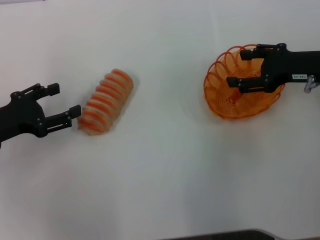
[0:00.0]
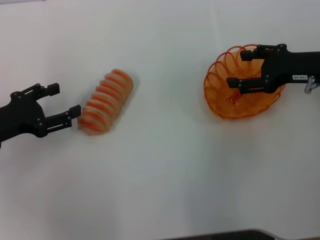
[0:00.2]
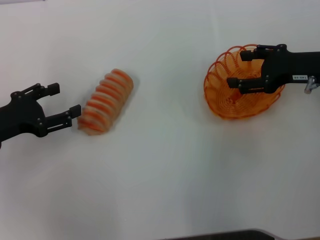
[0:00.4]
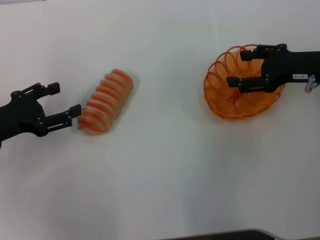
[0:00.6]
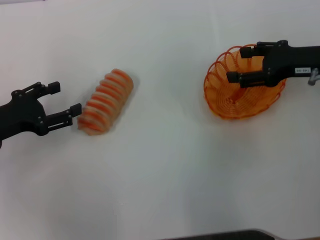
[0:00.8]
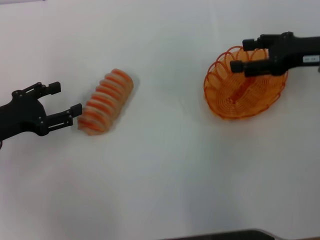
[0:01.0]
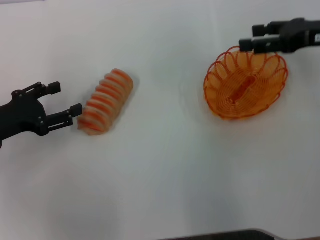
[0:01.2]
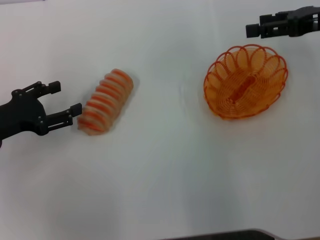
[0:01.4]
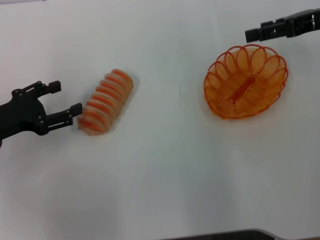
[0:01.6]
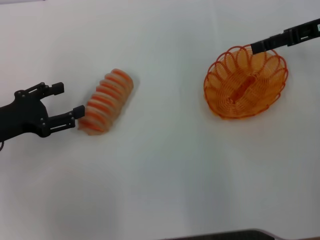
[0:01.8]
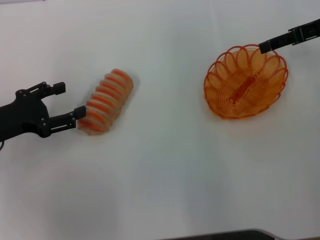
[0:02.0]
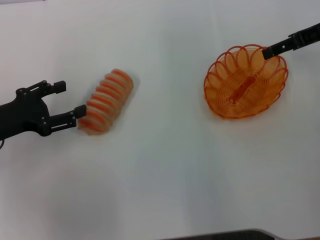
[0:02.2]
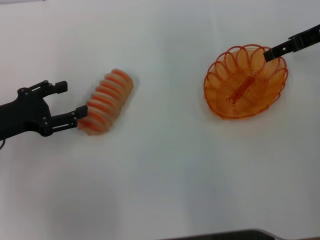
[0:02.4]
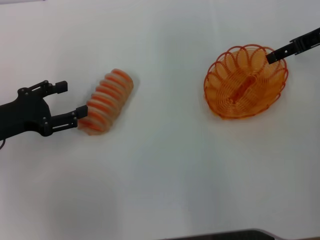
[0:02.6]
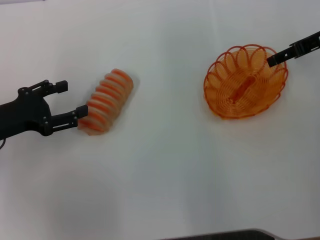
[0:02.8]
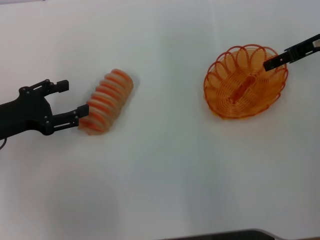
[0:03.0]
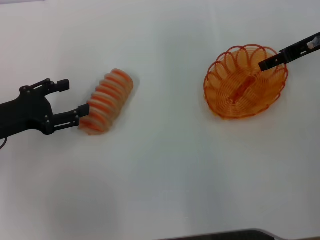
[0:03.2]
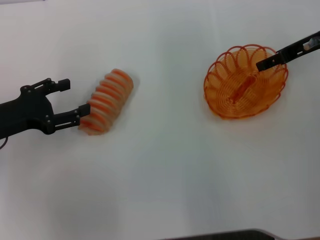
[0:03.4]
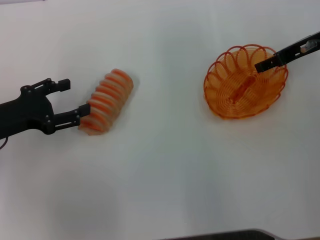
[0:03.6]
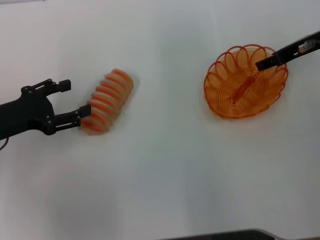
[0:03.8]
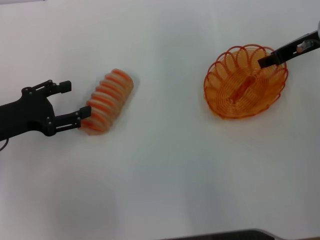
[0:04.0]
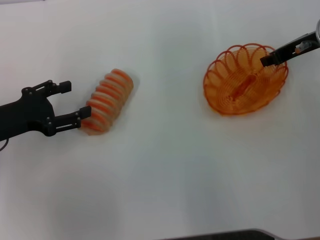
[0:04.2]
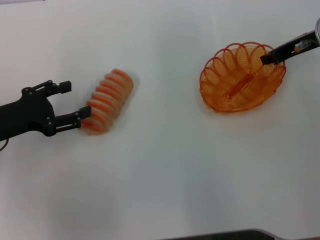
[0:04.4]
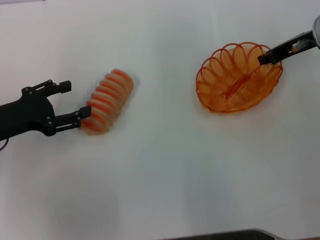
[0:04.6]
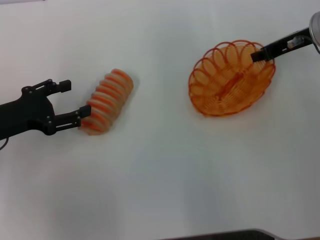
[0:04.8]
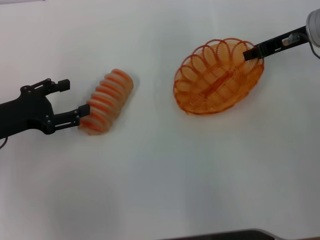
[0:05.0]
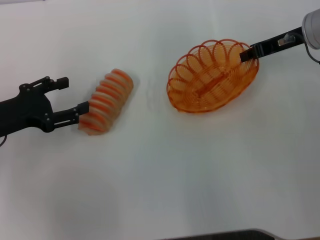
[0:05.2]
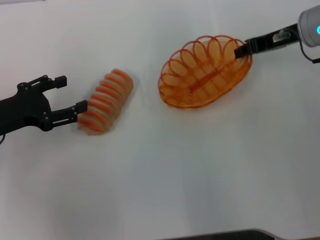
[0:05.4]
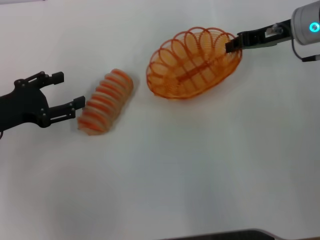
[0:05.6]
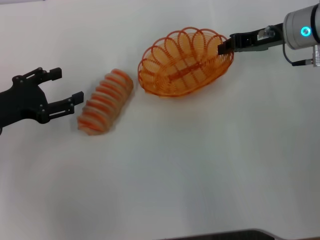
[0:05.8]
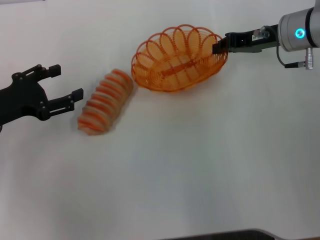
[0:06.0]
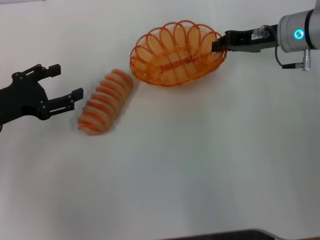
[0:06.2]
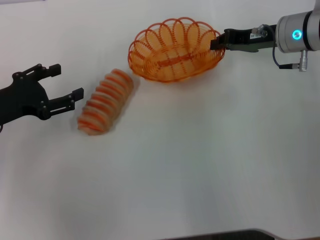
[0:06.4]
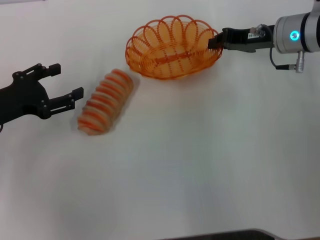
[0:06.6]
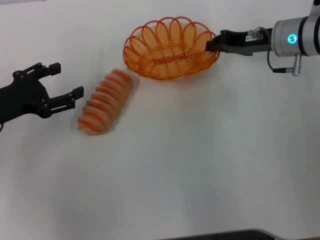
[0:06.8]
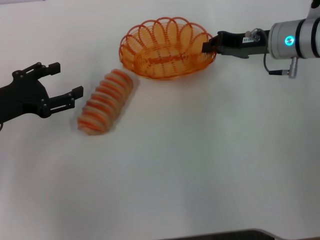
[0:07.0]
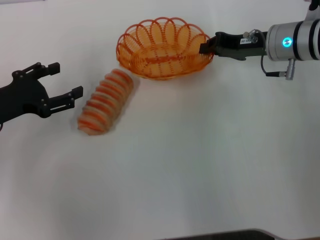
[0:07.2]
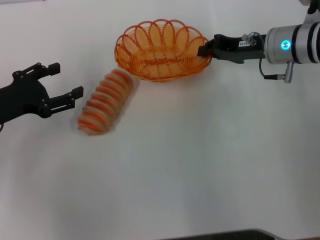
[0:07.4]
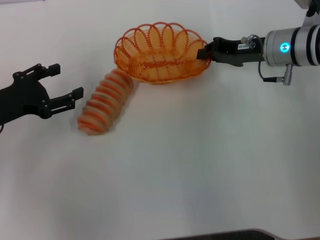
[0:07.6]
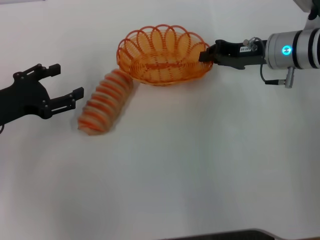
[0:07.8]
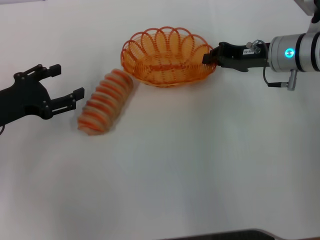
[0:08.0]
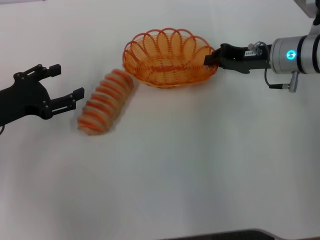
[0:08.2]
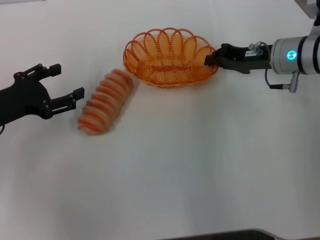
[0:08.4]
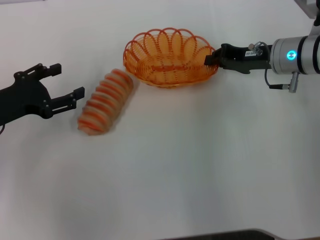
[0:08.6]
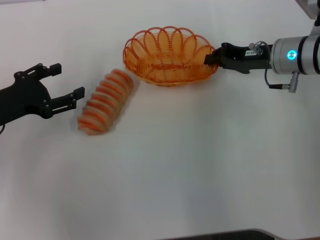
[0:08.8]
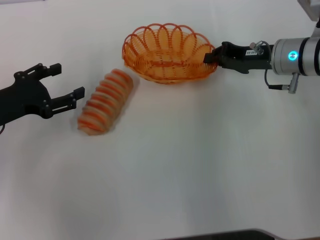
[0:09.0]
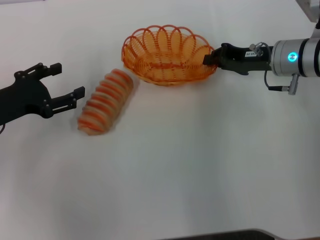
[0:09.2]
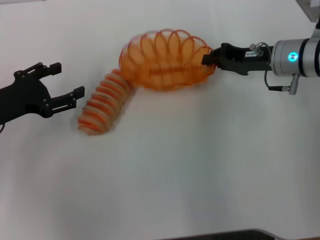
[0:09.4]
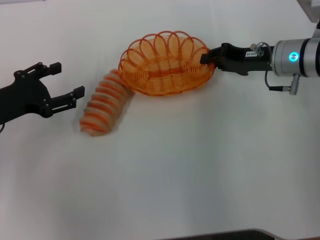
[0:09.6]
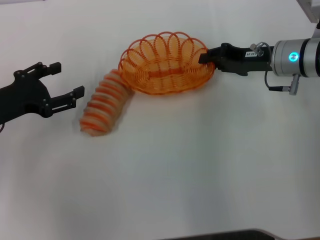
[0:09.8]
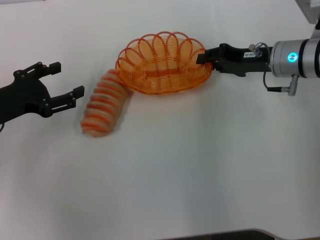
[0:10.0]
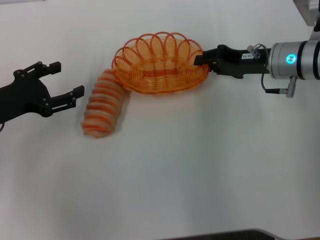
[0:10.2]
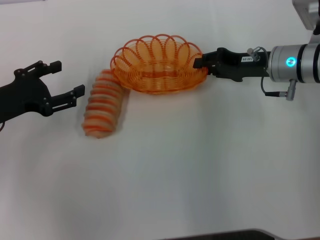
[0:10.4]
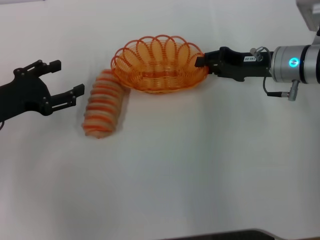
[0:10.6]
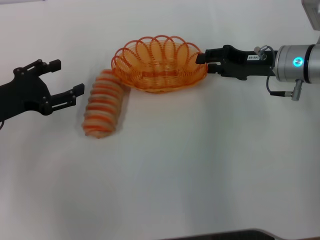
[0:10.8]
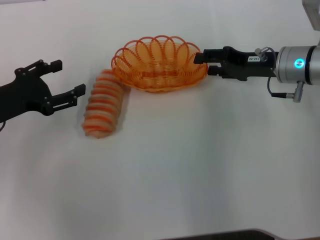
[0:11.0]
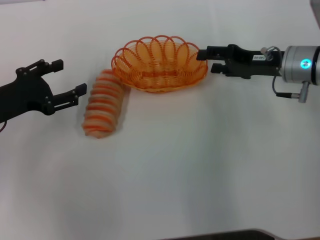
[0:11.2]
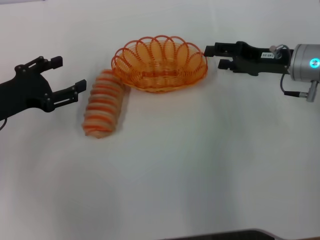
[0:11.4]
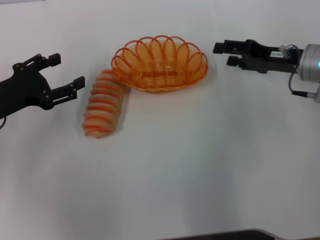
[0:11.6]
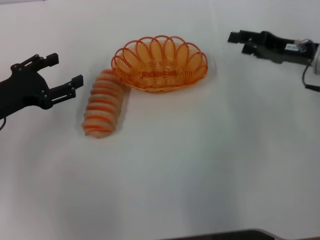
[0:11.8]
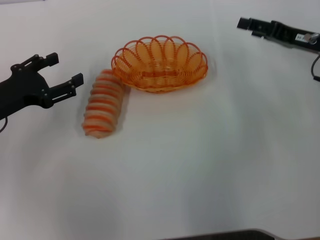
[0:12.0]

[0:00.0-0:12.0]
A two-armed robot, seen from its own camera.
Step, 0:00.0 to 0:05.2: Pick up the basket with the right gripper.
Step, 0:05.4 to 0:11.6: Place the basket in the center of view with the right gripper.
0:00.0 to 0:01.6: The right gripper is displaced upward by approximately 10 cm.
0:03.0 to 0:04.4: The right gripper closes.
0:06.0 to 0:07.6: The grippers move only a little.
0:07.6 to 0:09.0: There are only small adjustments of the grippers.
0:09.0 to 0:10.4: The right gripper opens.
0:10.4 to 0:12.0: The right gripper is displaced to the right by some 5 cm, and opens up.

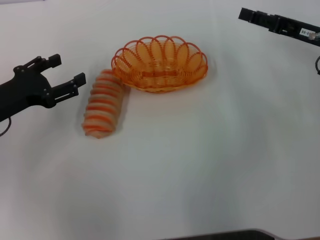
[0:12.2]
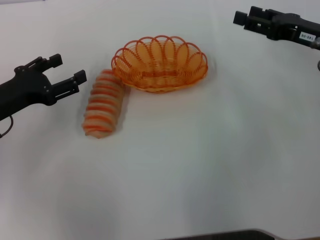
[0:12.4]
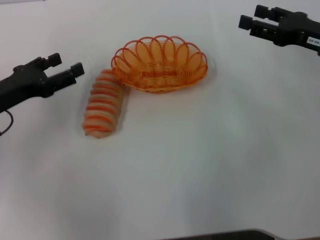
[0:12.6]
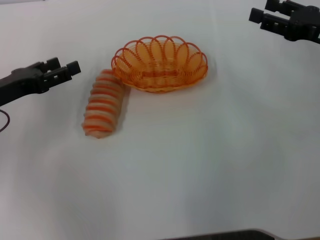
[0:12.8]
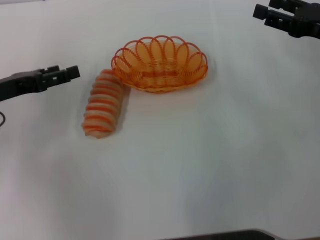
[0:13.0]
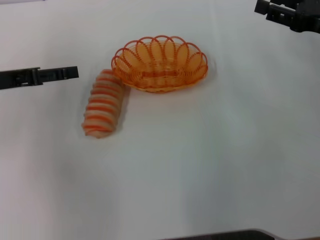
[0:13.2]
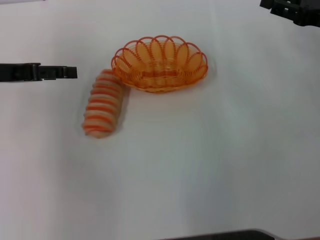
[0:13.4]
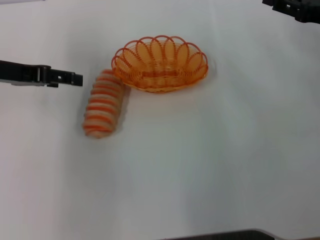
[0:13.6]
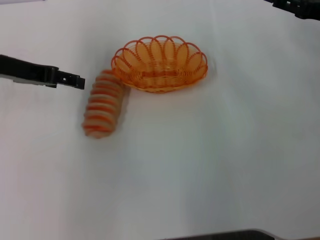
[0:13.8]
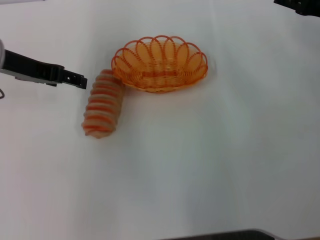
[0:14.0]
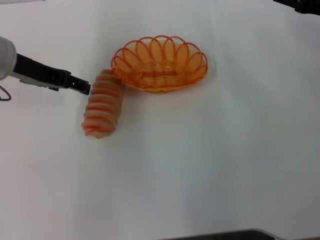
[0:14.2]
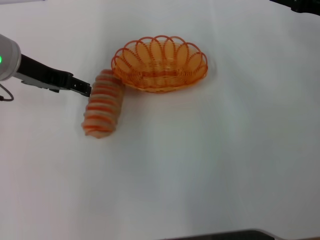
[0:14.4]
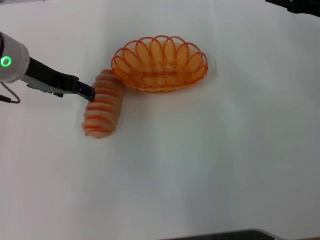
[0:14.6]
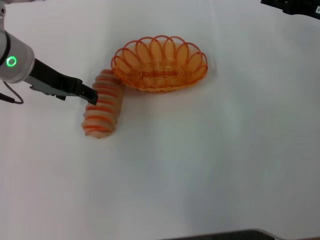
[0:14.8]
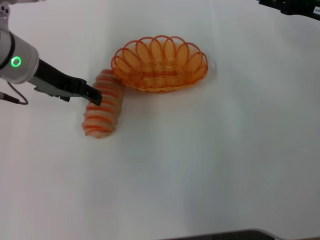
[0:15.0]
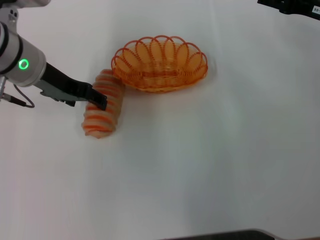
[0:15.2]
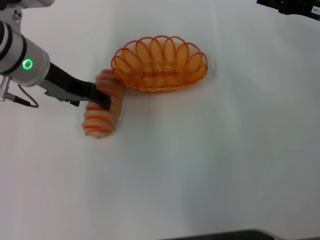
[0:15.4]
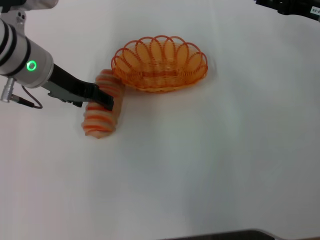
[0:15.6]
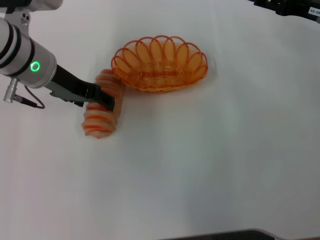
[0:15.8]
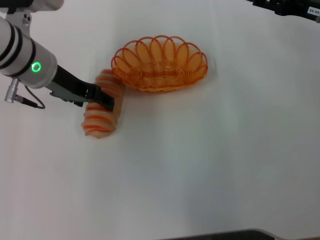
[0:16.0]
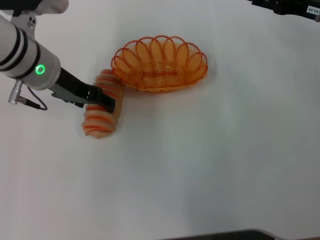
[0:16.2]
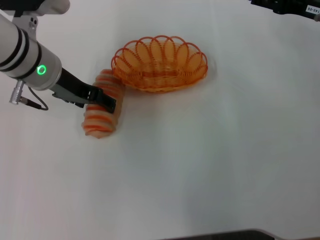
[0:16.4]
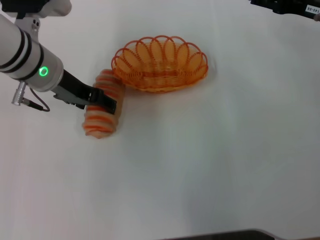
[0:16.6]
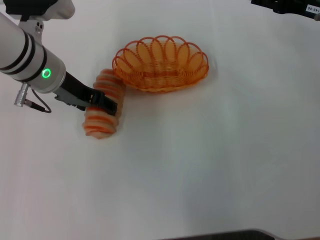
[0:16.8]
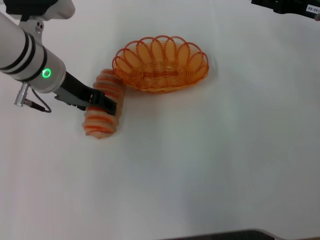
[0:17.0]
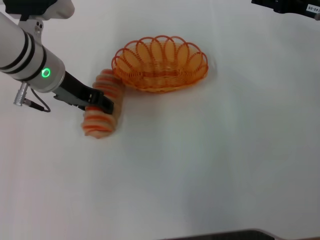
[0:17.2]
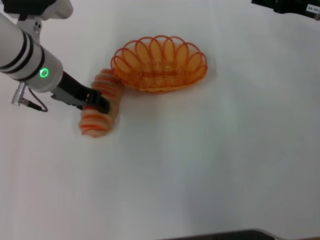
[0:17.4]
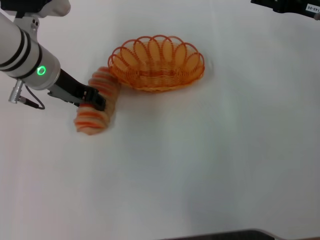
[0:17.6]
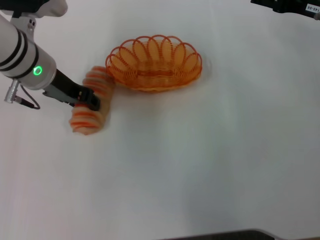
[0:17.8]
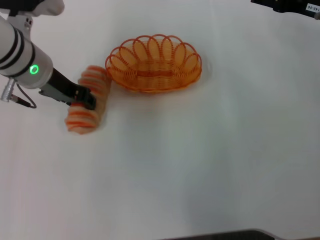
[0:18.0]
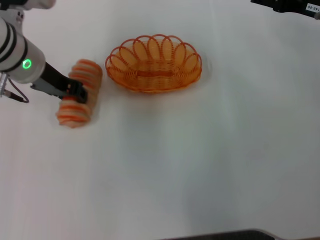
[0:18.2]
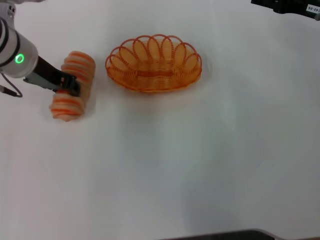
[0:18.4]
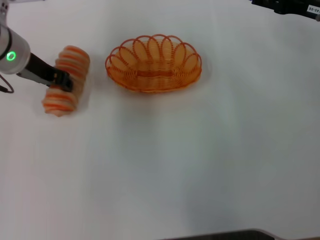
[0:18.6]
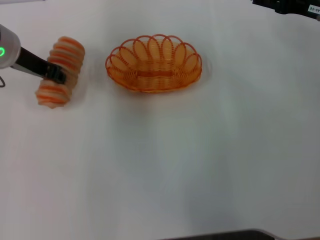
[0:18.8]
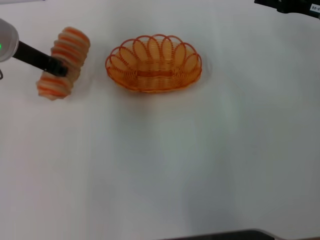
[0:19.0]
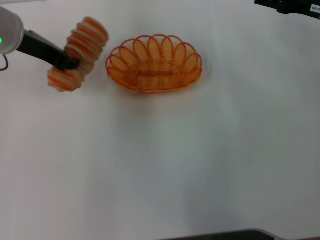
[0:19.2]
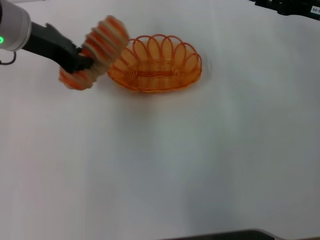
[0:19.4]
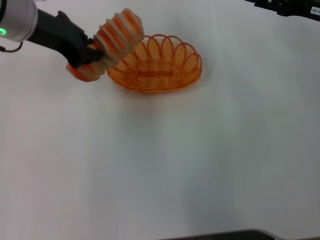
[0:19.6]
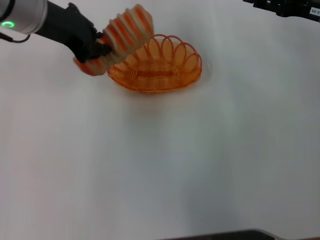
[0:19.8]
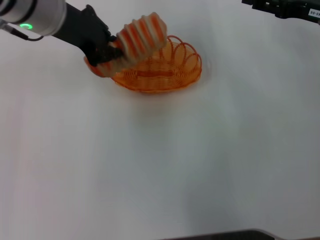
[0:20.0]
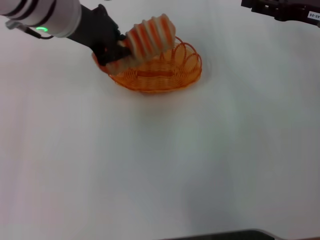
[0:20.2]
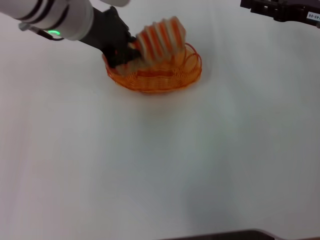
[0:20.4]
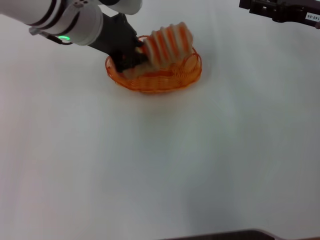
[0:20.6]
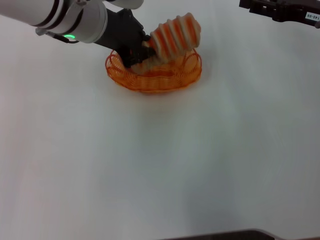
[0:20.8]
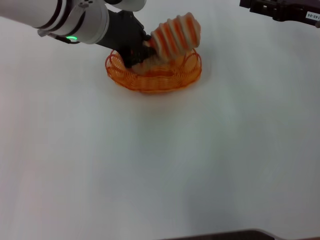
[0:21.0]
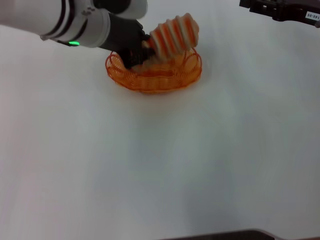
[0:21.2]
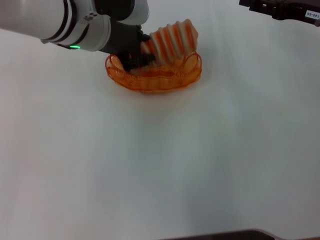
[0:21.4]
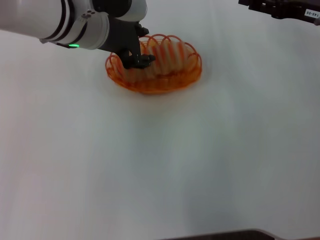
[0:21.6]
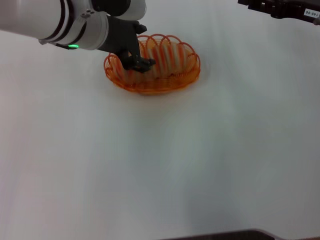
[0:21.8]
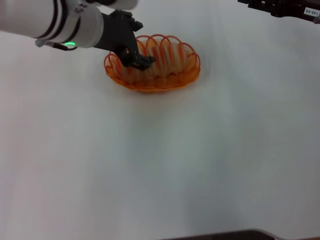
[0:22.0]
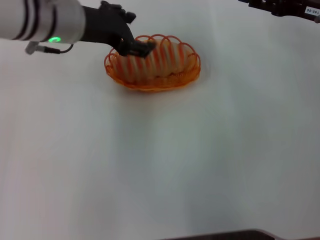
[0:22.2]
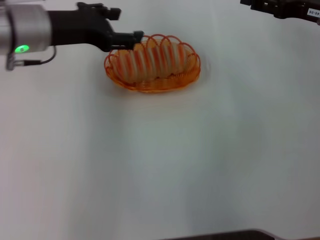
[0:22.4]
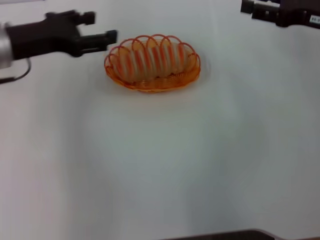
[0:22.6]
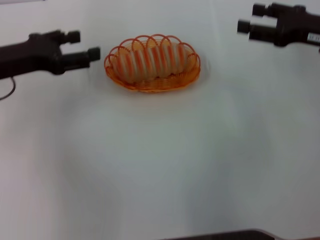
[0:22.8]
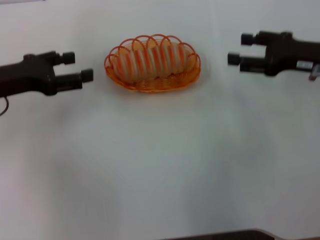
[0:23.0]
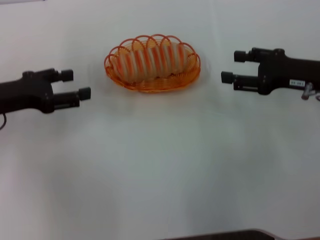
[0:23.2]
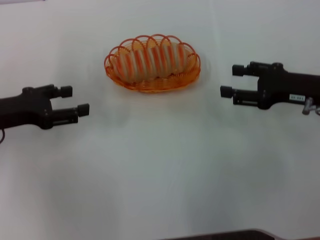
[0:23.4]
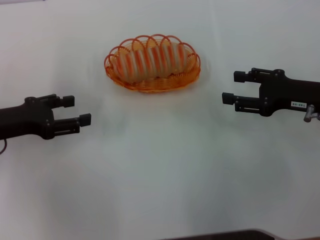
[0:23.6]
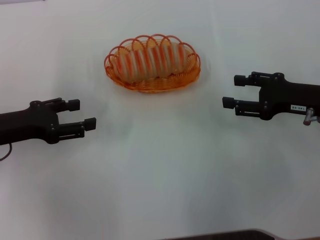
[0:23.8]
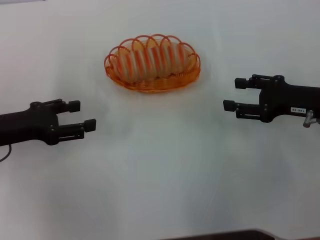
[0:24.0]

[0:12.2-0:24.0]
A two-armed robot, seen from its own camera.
Step, 0:12.2 to 0:18.4: Pick up the long bread with the left gripper.
Step, 0:18.6 to 0:22.4: Place the long bread into the basket with the left gripper.
0:12.2 to 0:13.6: The left gripper moves upward and forward, about 10 cm.
0:13.6 to 0:15.2: The left gripper heads to the right, covering about 10 cm.
0:15.2 to 0:16.6: There are only small adjustments of the grippers.
0:16.6 to 0:18.2: The left gripper closes.
0:18.2 to 0:19.6: The left gripper moves upward, roughly 5 cm, and closes its fingers.
0:19.6 to 0:21.0: The left gripper travels to the right by approximately 10 cm.
0:21.0 to 0:22.6: The left gripper is displaced to the left by about 15 cm, and opens up.
0:22.6 to 0:24.0: The right gripper travels backward and downward by roughly 10 cm; the left gripper travels downward and backward by about 10 cm.
